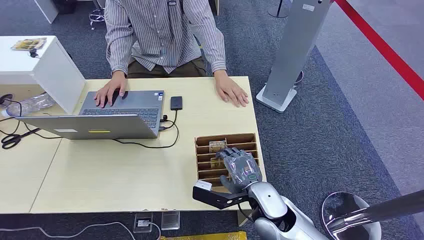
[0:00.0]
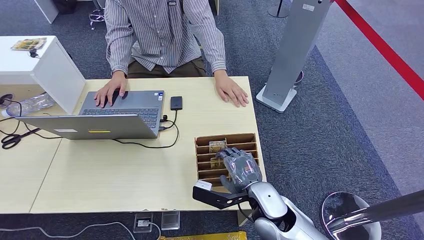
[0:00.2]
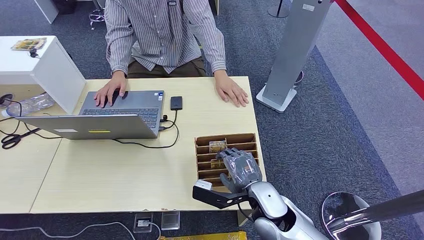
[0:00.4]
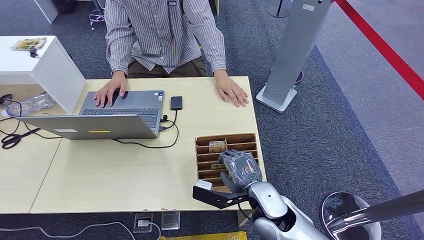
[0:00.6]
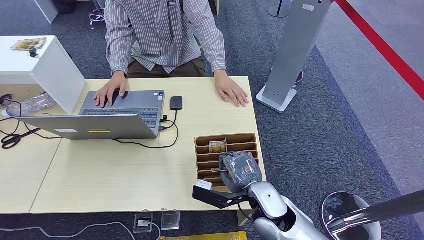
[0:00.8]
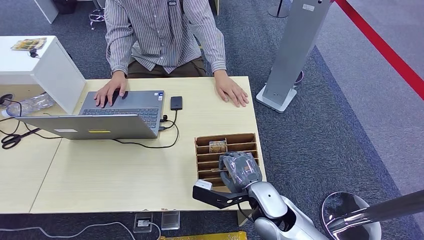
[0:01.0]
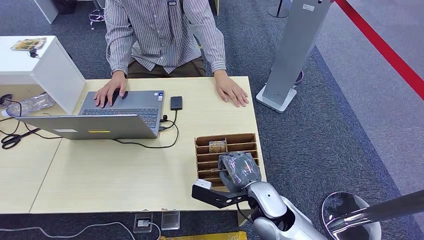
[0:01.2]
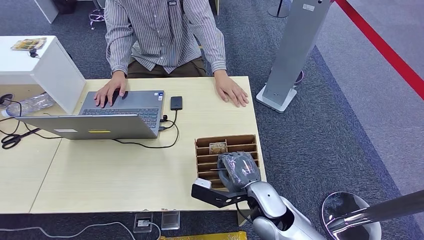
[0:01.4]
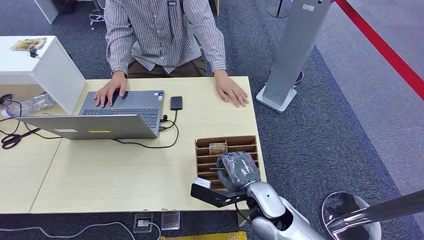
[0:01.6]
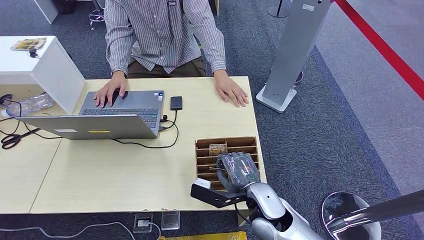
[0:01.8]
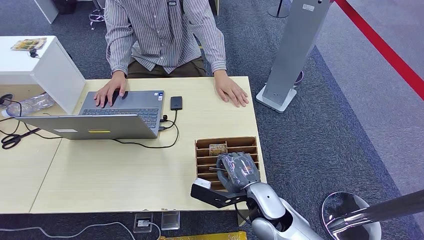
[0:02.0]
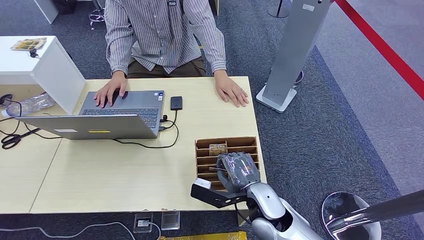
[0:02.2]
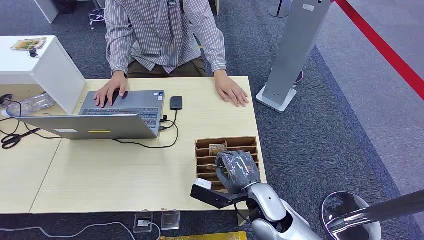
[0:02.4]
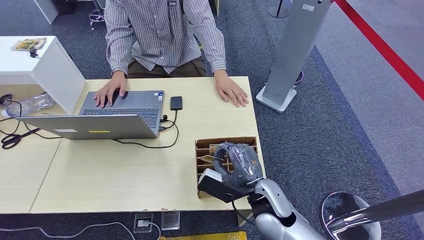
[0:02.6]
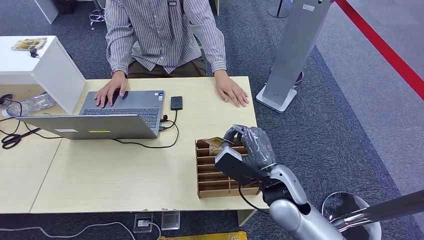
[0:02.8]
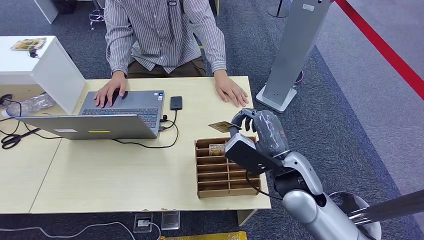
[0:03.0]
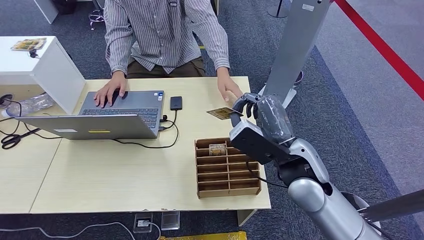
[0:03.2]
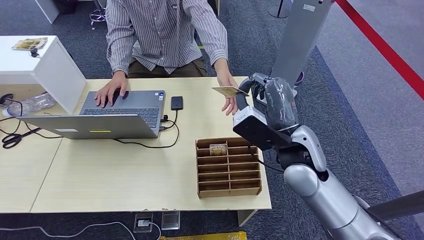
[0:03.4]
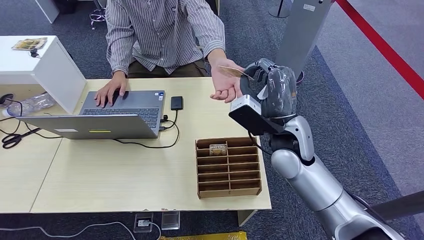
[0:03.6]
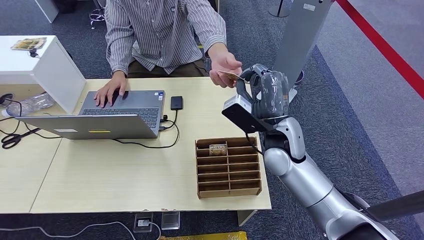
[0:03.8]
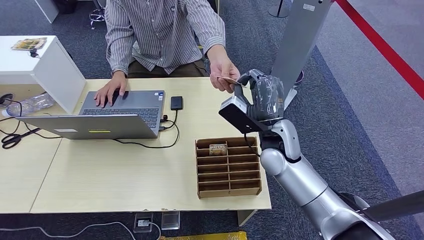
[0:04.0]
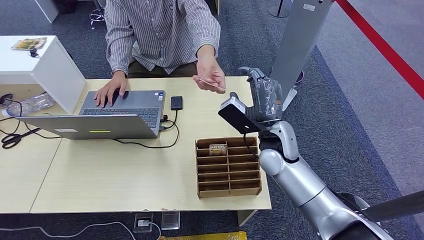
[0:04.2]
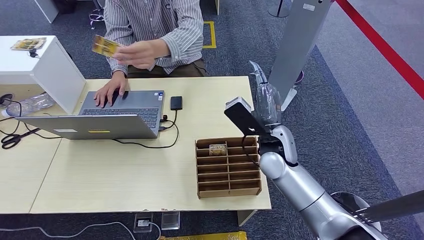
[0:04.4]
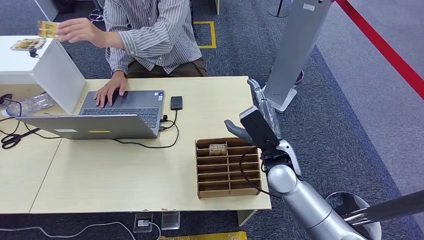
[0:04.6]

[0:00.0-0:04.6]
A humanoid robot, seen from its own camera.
Step, 0:00.0 to 0:02.6: Pick up the key card from the card box.
Step, 0:03.8 to 0:04.6: Hand the key card to the target.
0:01.6 to 0:03.0: The right hand is displaced upward by approximately 10 cm.
0:03.0 to 0:04.6: The right hand moves forward, approximately 5 cm.

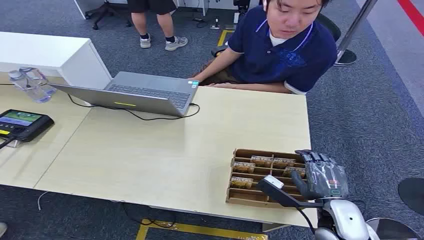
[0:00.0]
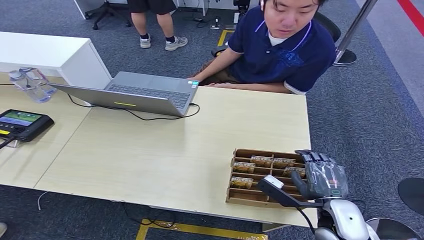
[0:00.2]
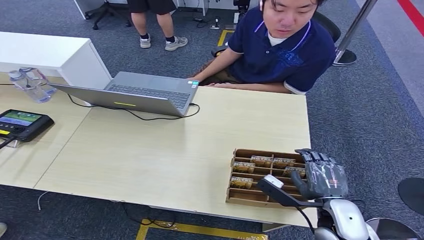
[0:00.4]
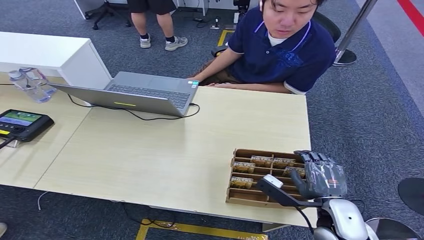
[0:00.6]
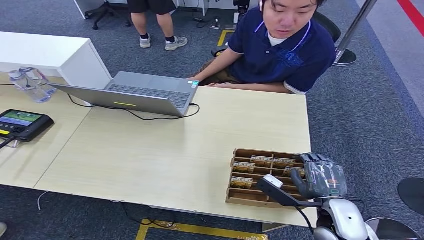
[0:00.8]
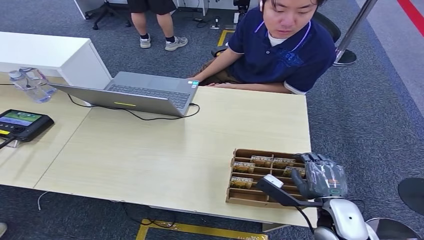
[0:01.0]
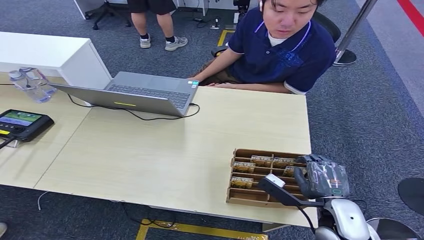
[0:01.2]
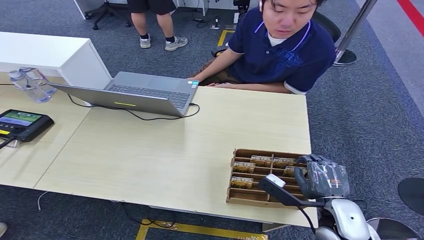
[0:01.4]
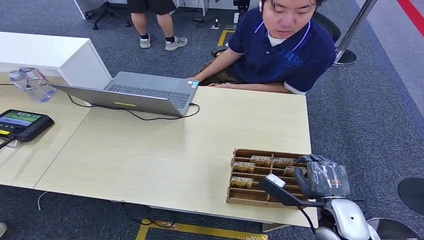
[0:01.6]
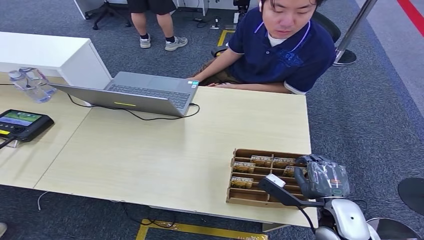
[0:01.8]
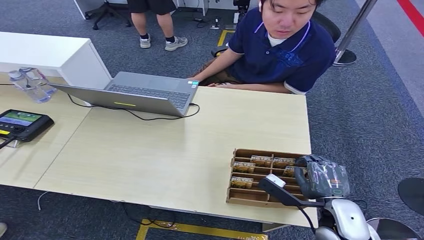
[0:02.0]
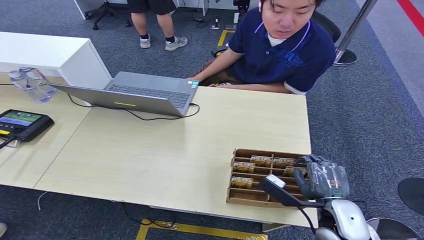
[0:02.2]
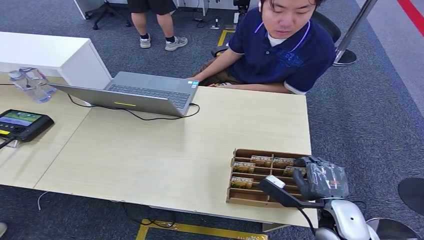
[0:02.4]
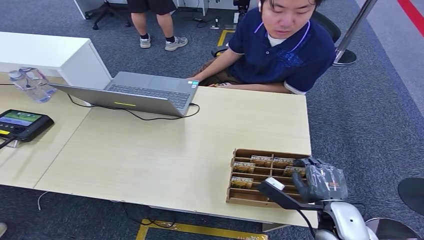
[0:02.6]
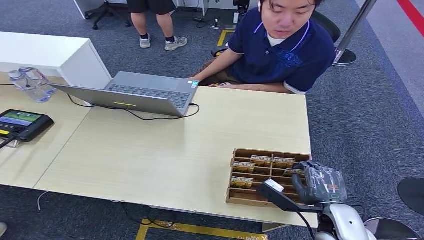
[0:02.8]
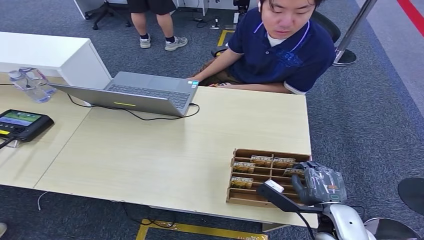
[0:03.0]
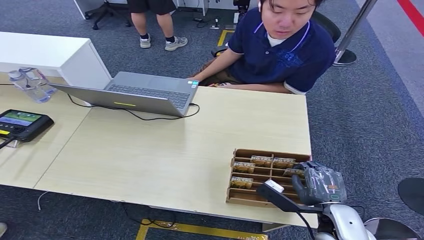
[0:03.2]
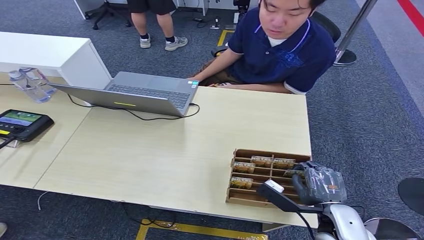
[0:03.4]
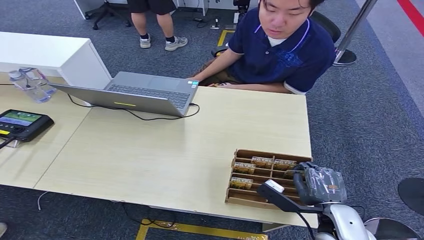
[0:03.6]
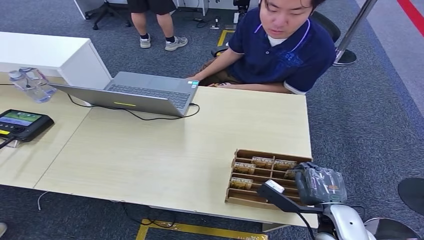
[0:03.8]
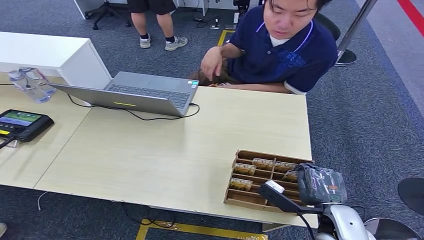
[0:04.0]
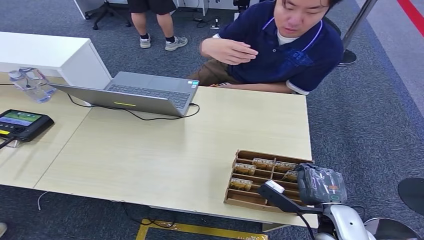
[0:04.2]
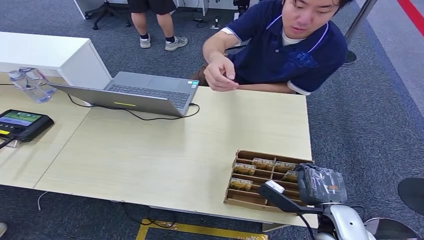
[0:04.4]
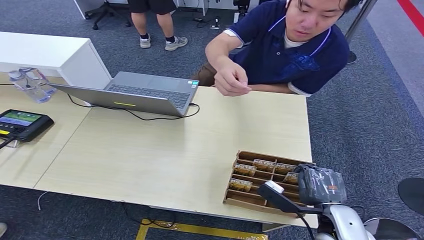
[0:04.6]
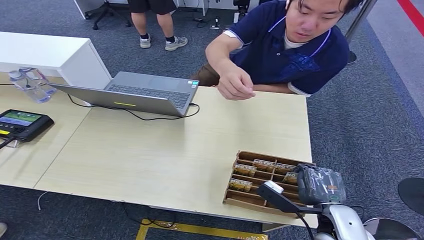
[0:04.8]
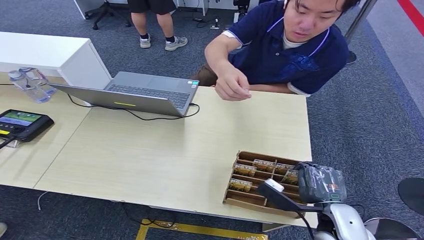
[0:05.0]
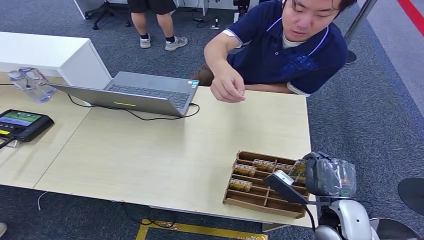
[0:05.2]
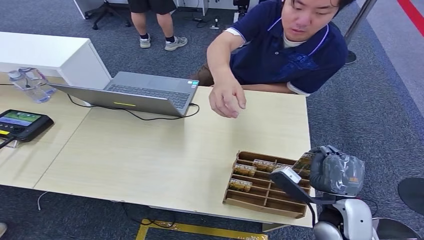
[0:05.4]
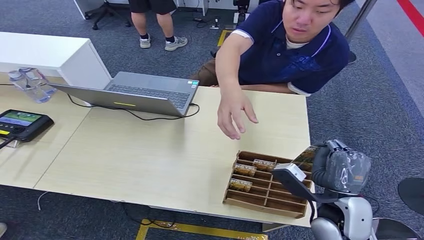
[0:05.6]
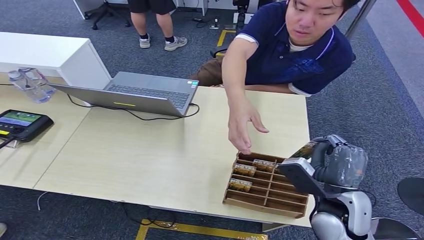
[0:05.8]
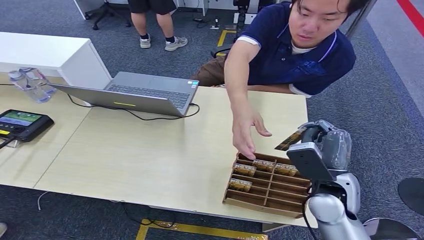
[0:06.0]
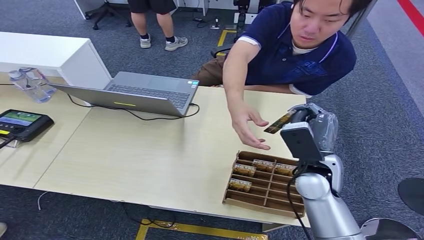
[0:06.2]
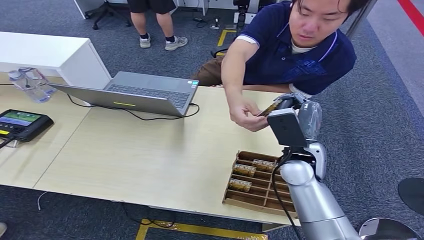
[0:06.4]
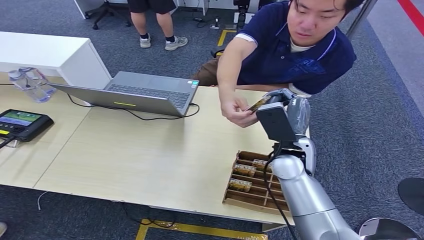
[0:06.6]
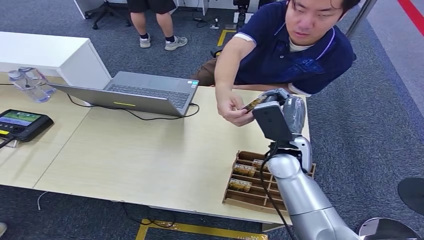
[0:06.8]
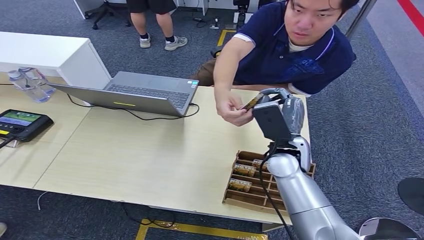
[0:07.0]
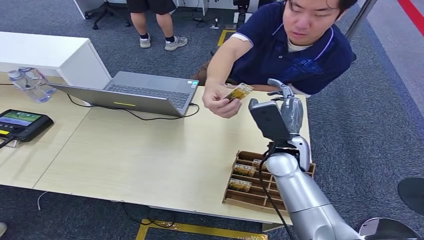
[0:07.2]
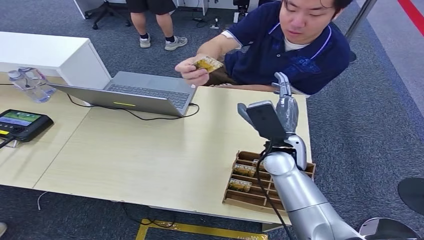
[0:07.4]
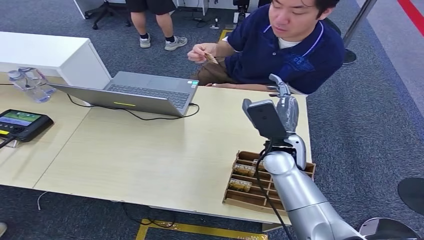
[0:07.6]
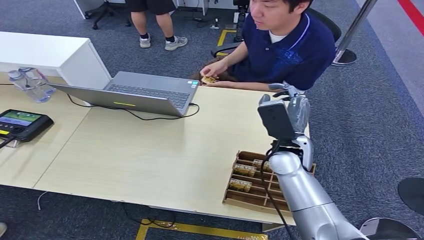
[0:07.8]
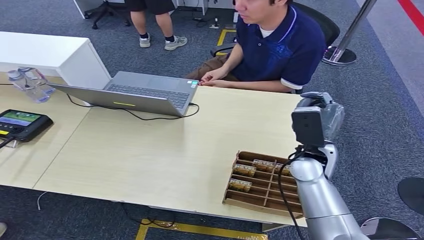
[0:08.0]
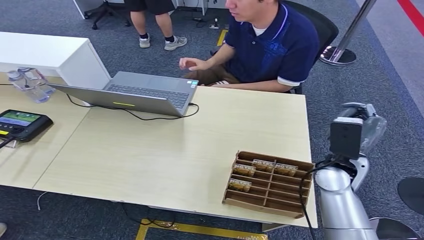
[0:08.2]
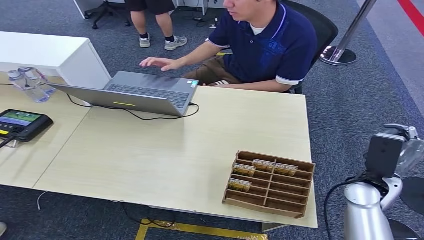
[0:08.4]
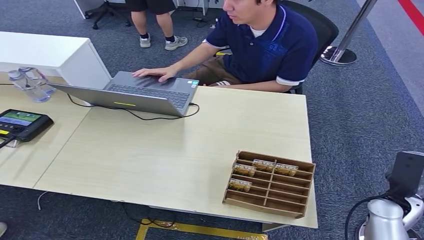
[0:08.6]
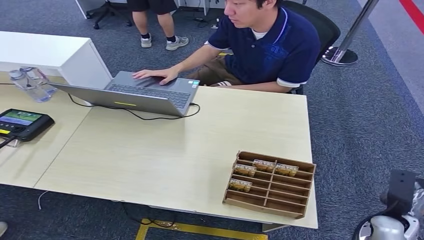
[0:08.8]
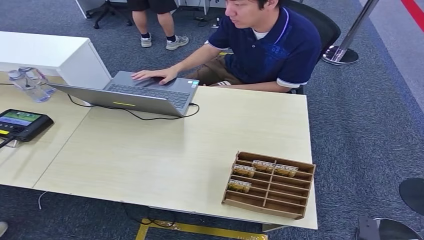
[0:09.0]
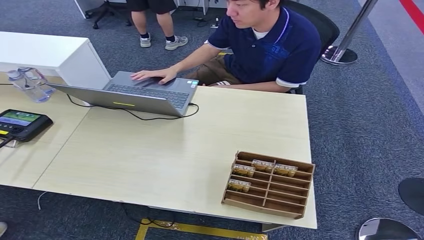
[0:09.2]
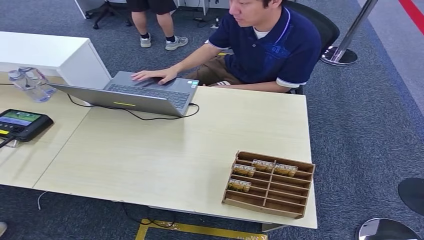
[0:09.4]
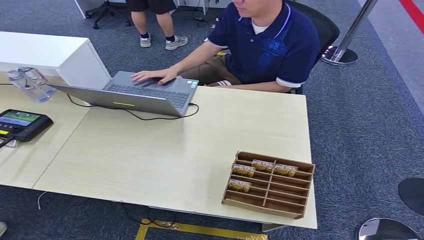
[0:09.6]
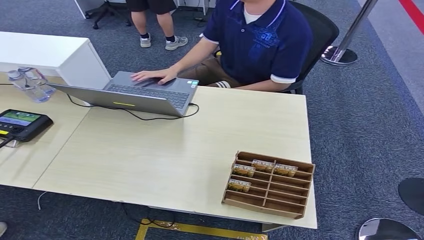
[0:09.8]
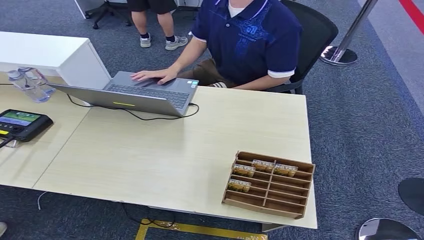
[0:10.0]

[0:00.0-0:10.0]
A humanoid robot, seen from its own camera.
Step, 0:00.0 to 0:05.4: Pick up the key card from the card box.
Step, 0:05.6 to 0:10.0: Hand the key card to the target.
0:01.4 to 0:02.8: Both hands stay put.
0:02.8 to 0:04.2: The two hands keep their place.
0:04.2 to 0:05.8: The right hand moves upward, roughly 5 cm.
0:05.8 to 0:07.2: The right hand travels forward and to the left by approximately 15 cm.
0:08.6 to 0:10.0: The right hand goes about 30 cm backward and downward.
